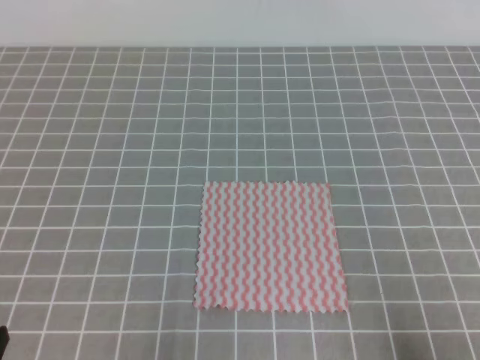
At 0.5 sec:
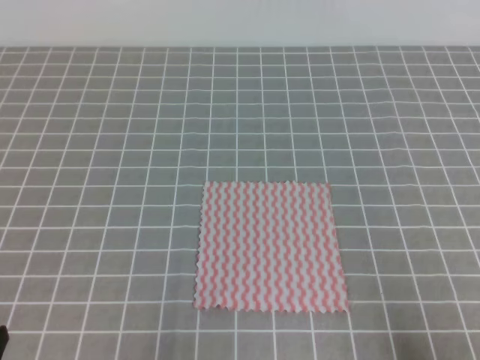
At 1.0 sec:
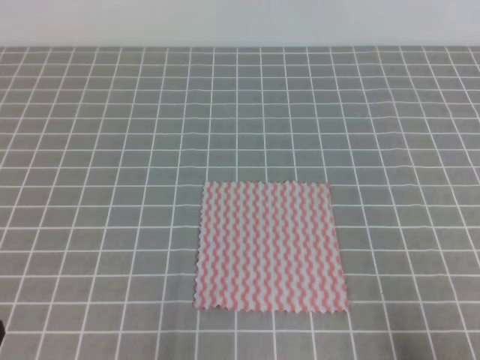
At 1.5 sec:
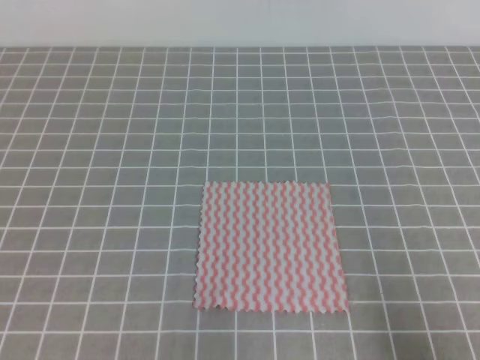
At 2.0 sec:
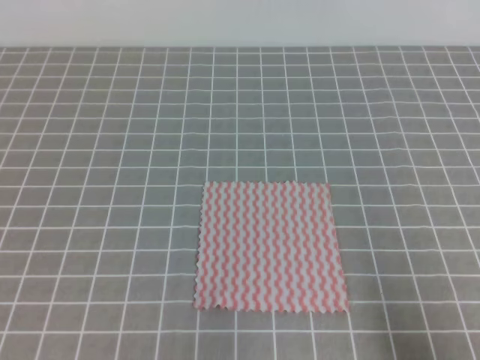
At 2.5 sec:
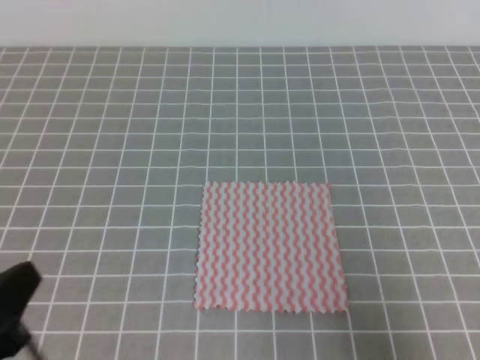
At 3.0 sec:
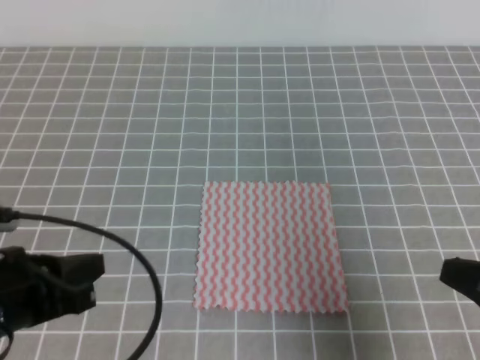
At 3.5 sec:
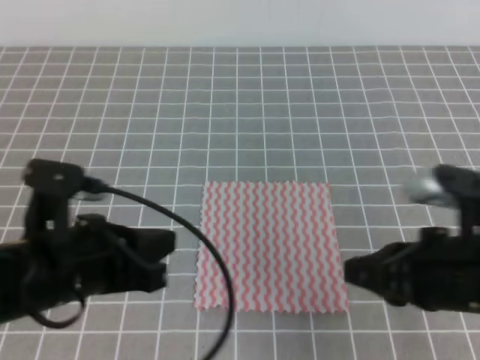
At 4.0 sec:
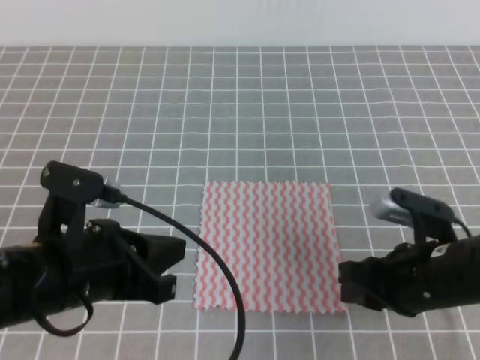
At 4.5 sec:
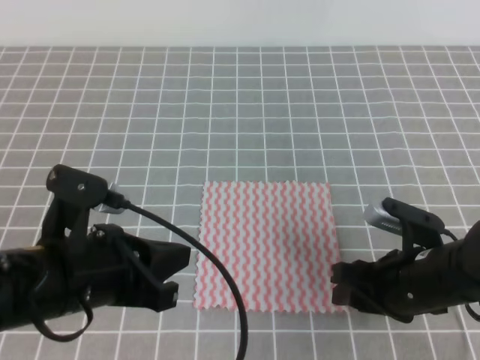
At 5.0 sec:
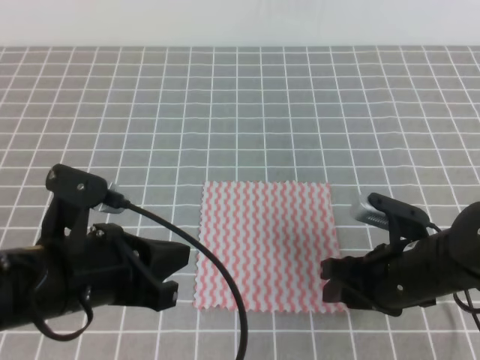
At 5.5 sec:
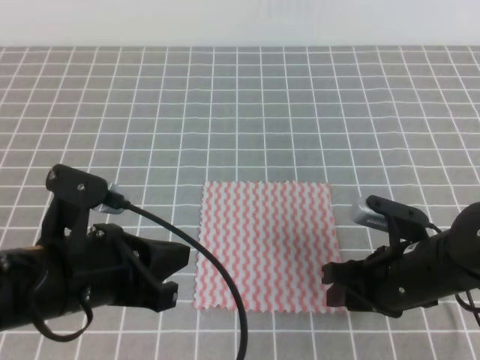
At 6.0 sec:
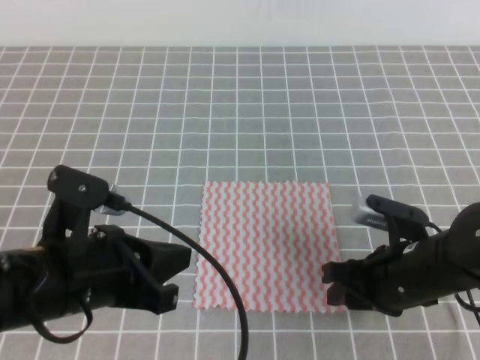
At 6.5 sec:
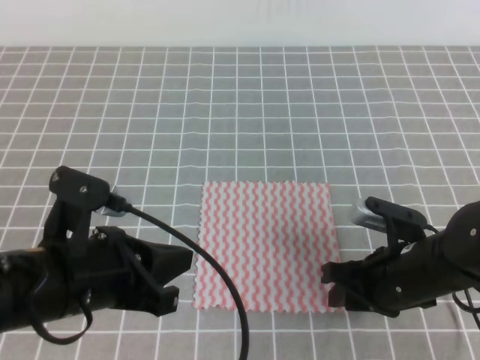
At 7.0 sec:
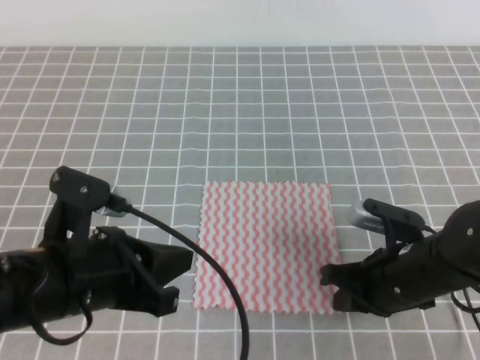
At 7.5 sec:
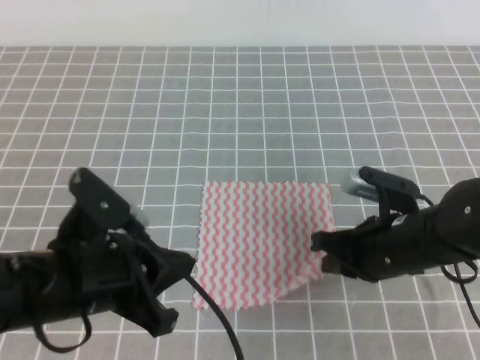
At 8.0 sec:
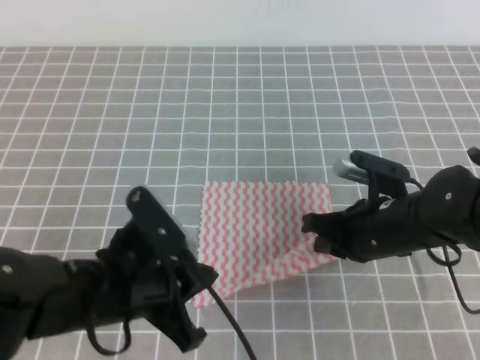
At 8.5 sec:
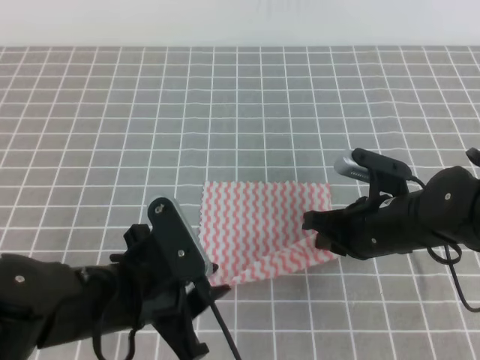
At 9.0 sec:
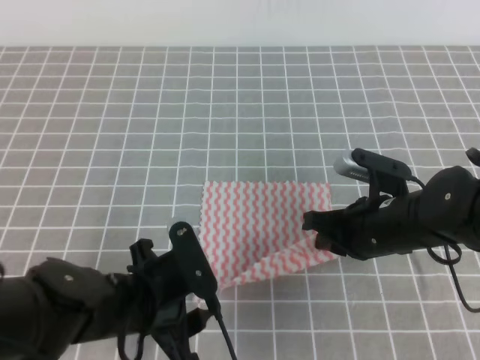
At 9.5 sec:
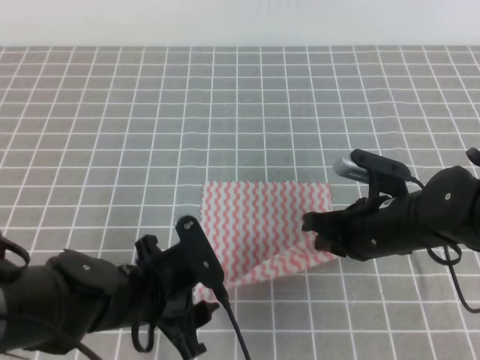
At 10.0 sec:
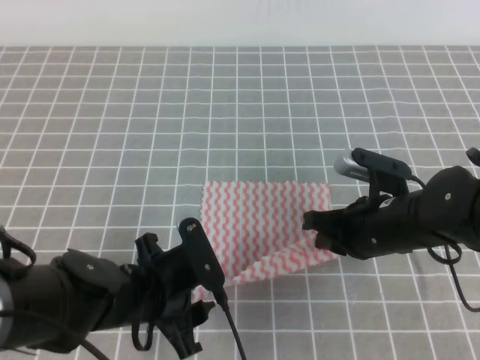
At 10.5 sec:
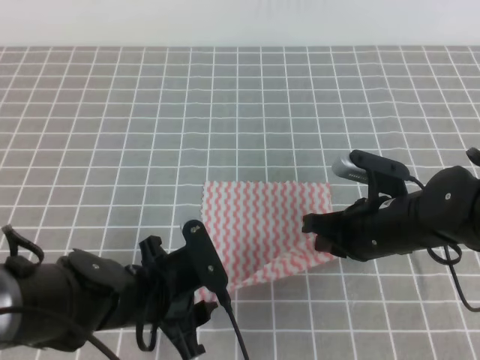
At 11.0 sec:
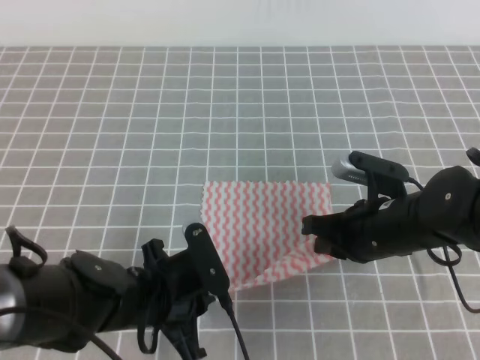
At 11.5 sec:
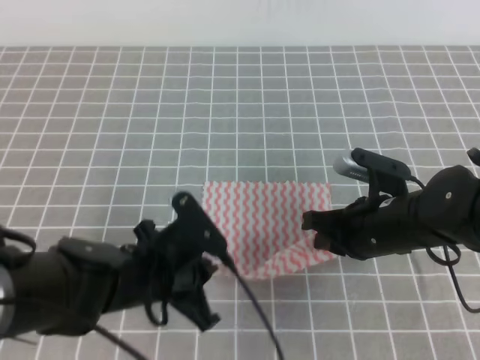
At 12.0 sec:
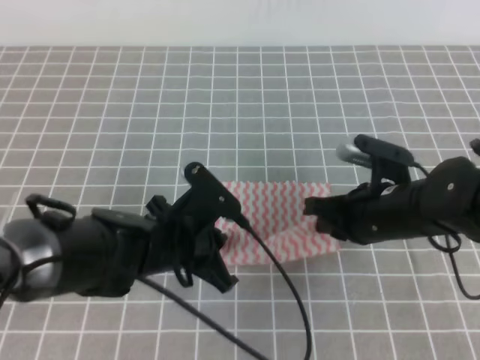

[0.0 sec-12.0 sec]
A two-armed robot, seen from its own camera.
2.0 sec to 4.0 sec: The right gripper shifts about 20 cm forward and to the left, and opens up. Meanwhile the left gripper is displaced forward and to the right by approximately 15 cm.
4.0 sec to 6.0 sec: The right gripper opens.
6.0 sec to 8.0 sec: The right gripper changes place by about 5 cm, and closes.
8.0 sec to 10.0 sec: The left gripper travels downward by about 5 cm, and opens up.
10.0 sec to 12.0 sec: The left gripper changes place by about 5 cm, and closes up.

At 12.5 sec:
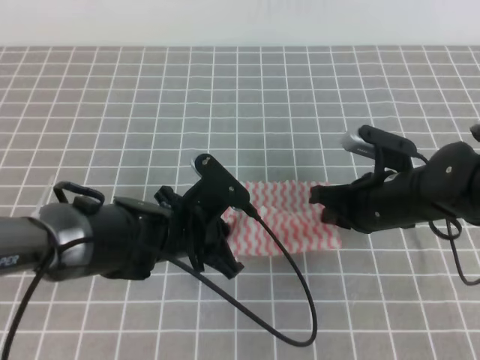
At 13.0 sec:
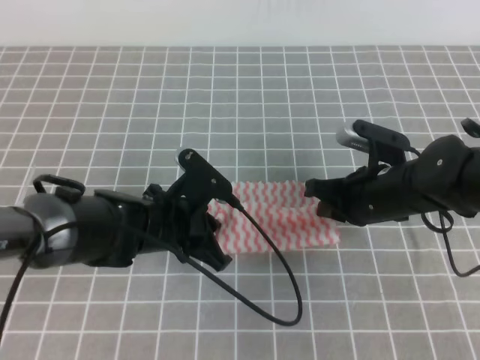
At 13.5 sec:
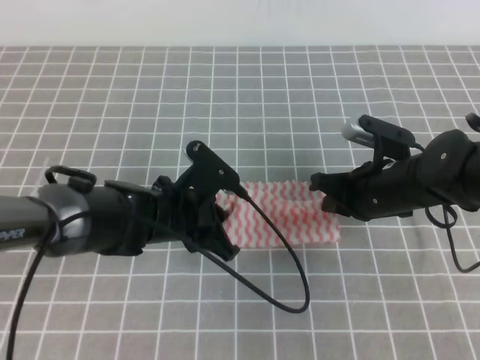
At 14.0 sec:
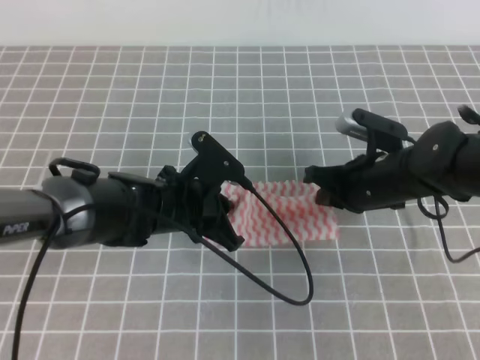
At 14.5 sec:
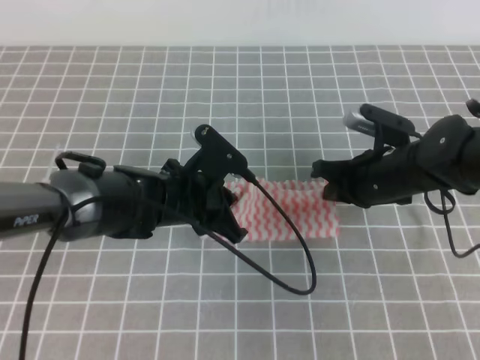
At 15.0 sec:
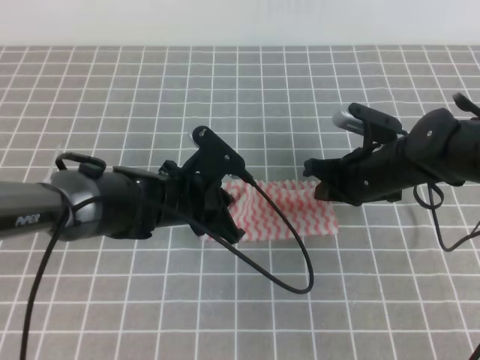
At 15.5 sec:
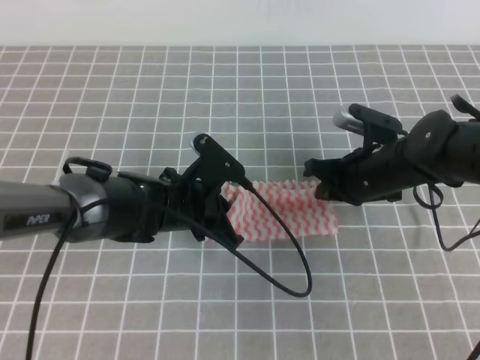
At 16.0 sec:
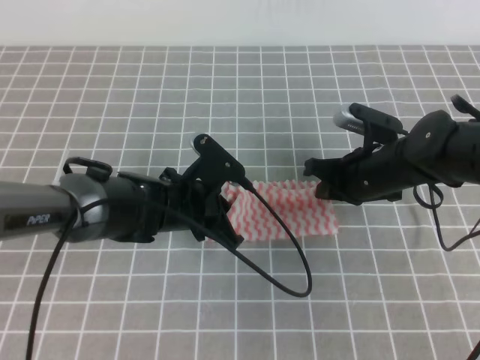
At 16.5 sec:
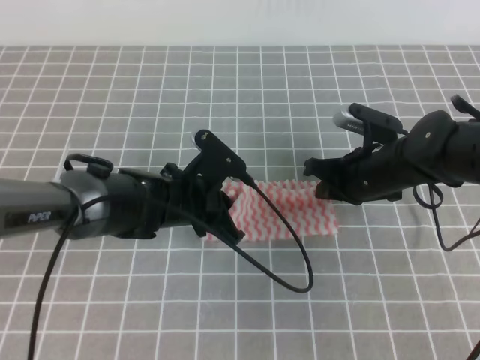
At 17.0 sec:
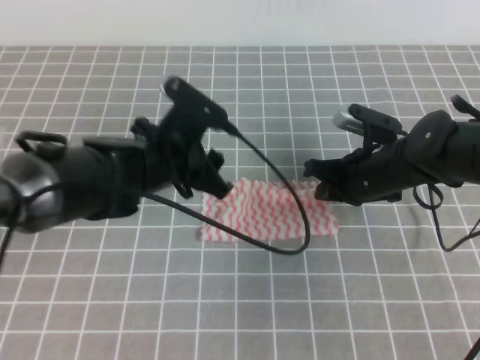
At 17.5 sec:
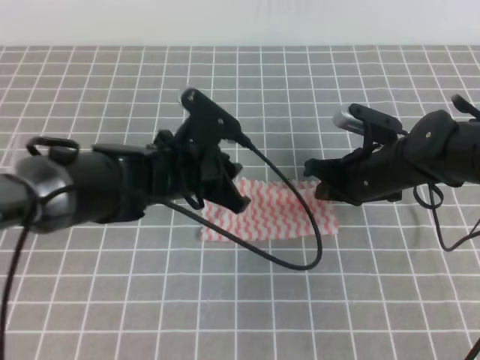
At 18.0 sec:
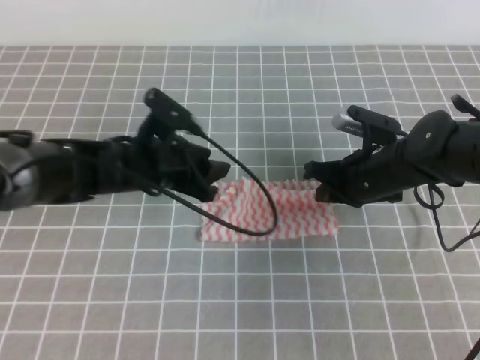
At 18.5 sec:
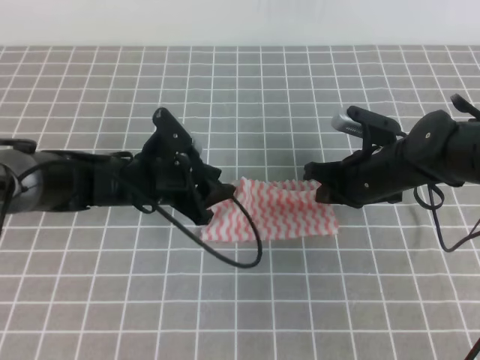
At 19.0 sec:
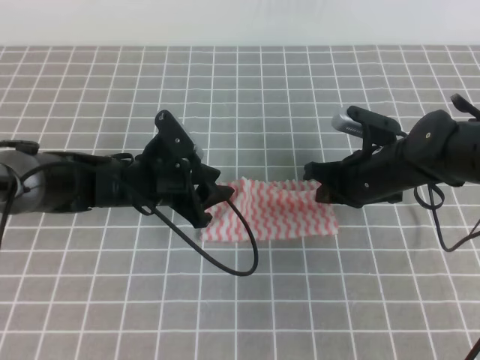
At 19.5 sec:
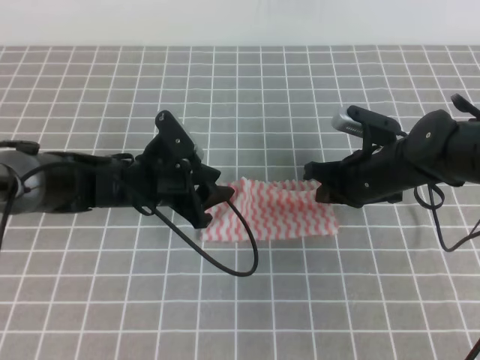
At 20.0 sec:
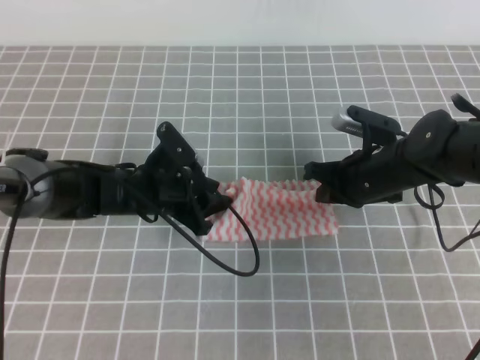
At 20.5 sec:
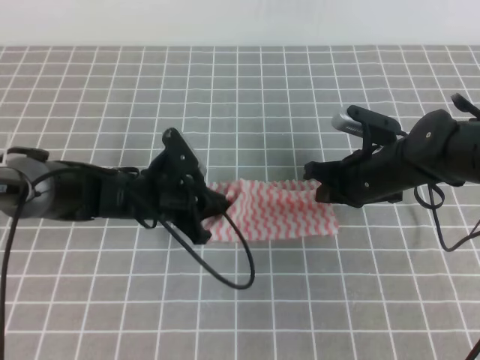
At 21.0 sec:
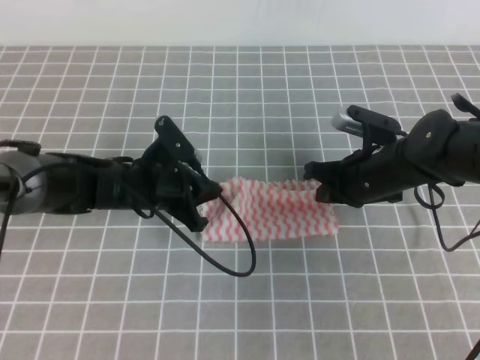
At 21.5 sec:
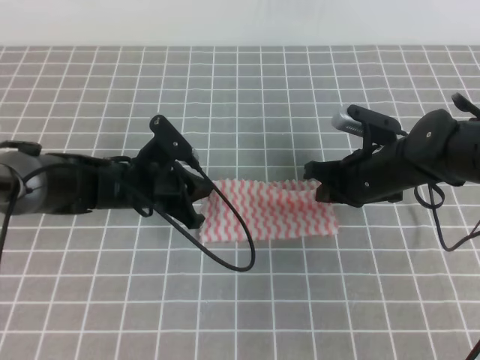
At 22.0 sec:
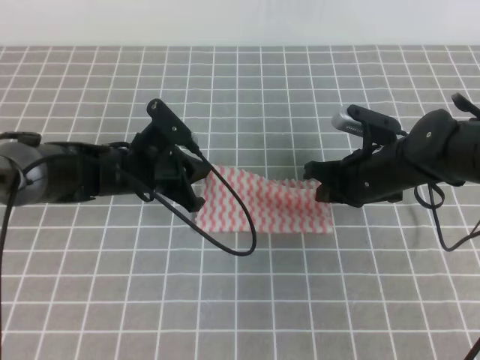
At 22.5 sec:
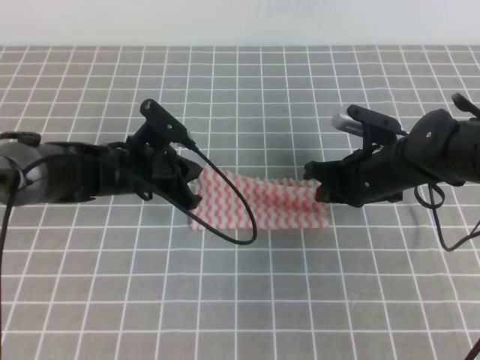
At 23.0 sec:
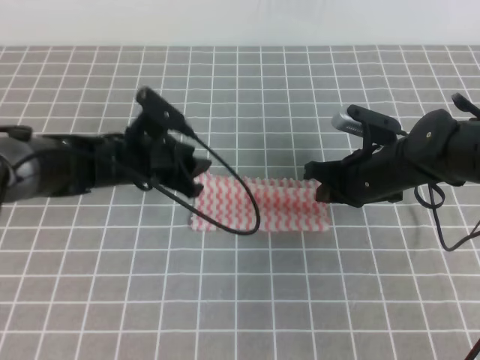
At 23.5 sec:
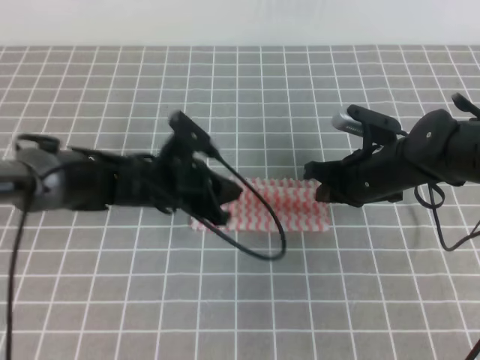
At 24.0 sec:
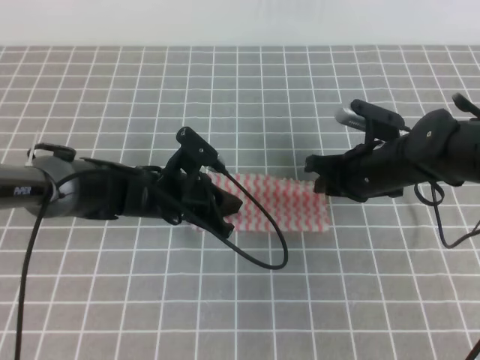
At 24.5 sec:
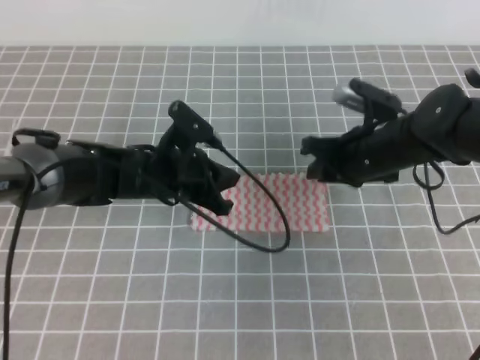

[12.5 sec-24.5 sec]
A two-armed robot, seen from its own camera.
14.5 sec to 16.5 sec: The grippers move only a little.
16.5 sec to 18.5 sec: The left gripper moves about 5 cm, and opens its fingers.
18.5 sec to 20.5 sec: The left gripper closes.
20.5 sec to 22.5 sec: The grippers make only small movements.
22.5 sec to 24.5 sec: The right gripper opens up, while the left gripper opens and closes again.

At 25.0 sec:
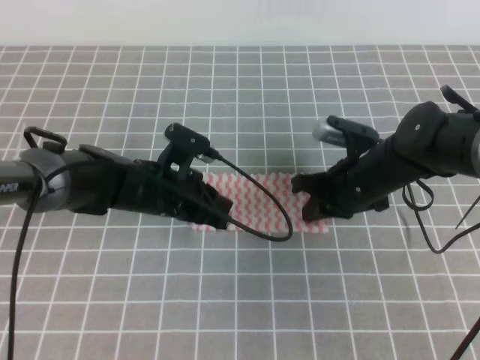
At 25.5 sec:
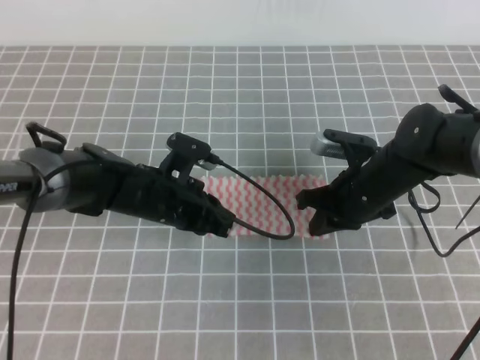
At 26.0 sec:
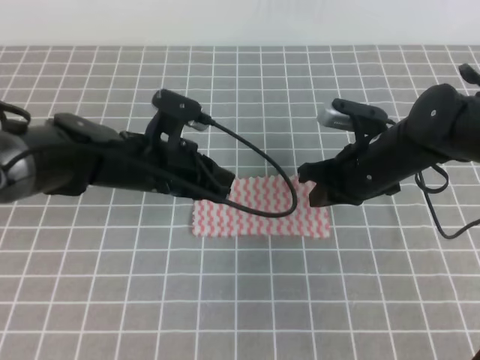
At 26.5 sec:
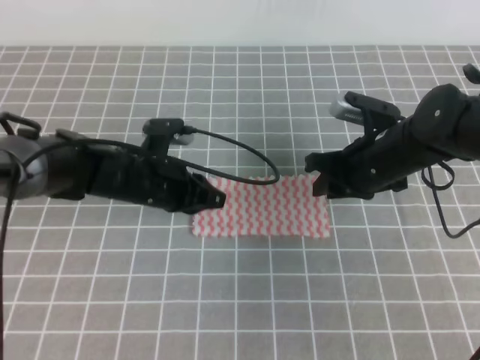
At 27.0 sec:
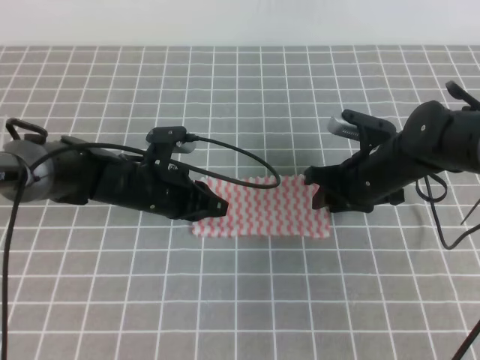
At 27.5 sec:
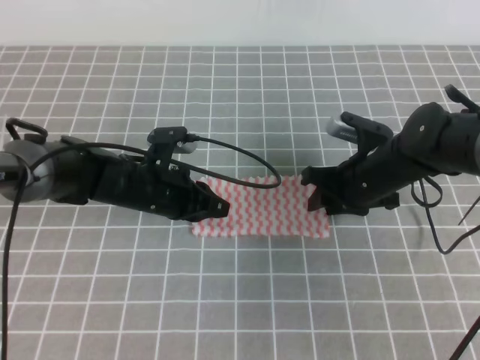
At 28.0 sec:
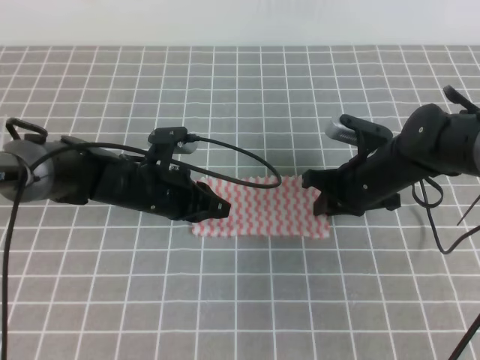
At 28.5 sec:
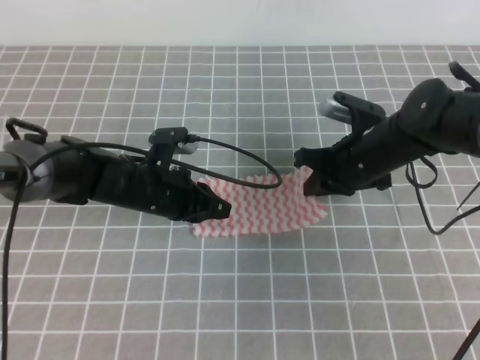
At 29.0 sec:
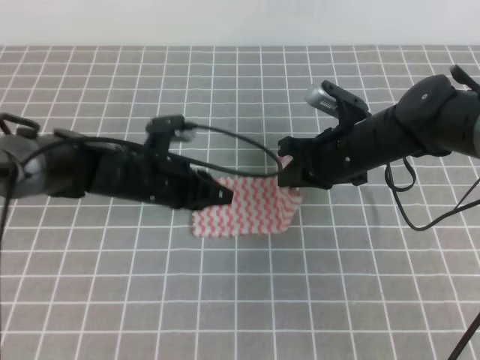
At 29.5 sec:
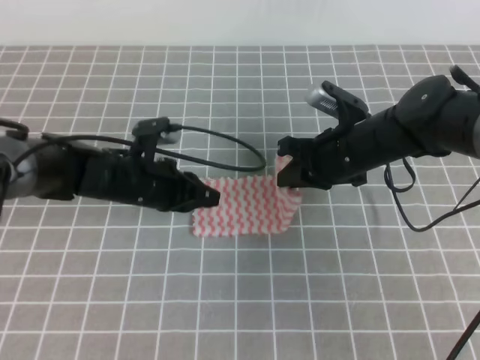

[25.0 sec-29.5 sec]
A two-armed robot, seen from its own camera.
25.0 sec to 27.0 sec: The right gripper opens.
27.0 sec to 29.5 sec: The right gripper closes up.
